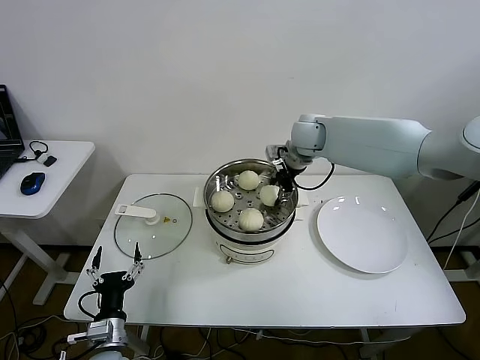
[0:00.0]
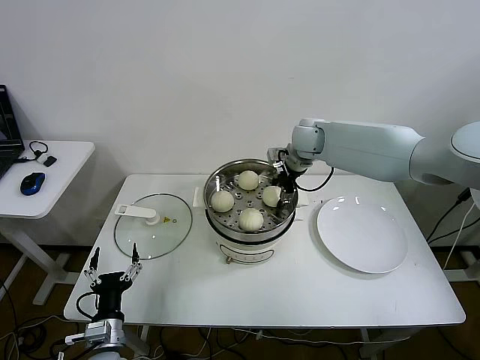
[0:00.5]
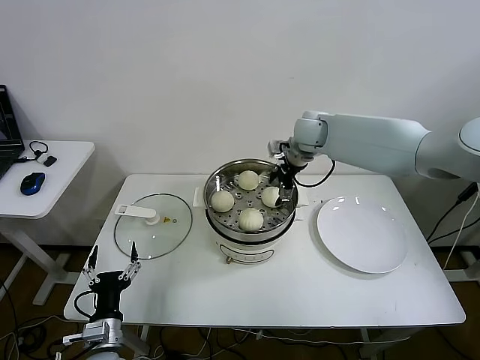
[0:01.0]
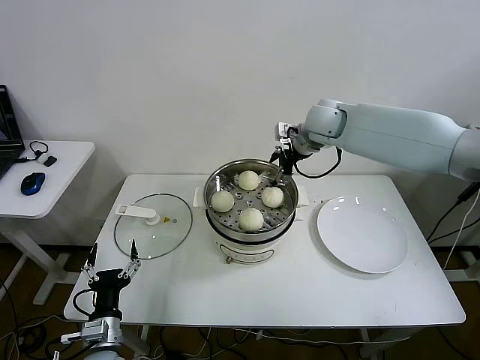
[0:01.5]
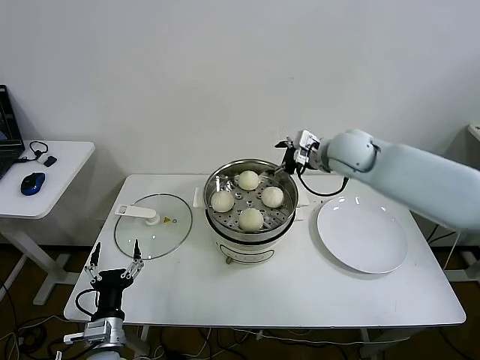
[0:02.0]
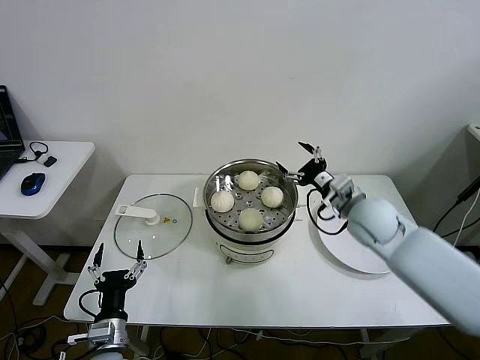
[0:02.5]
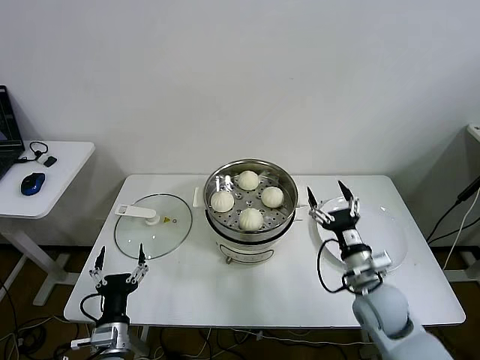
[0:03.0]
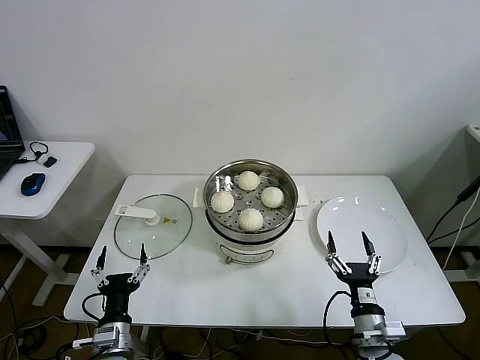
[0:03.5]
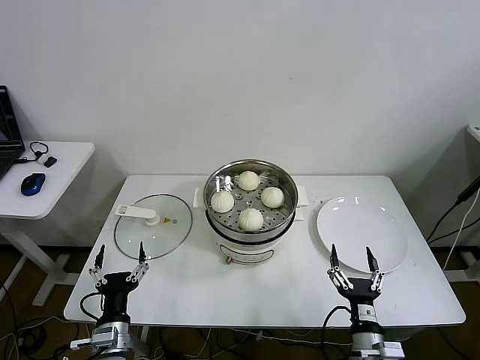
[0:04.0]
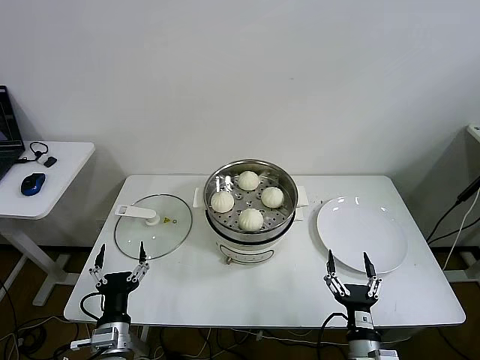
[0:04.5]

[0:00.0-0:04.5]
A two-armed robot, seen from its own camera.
0:00.0 to 0:02.0: The right gripper shifts about 10 cm backward and to the right, and opens.
0:02.0 to 0:04.5: The right gripper goes about 50 cm backward and downward.

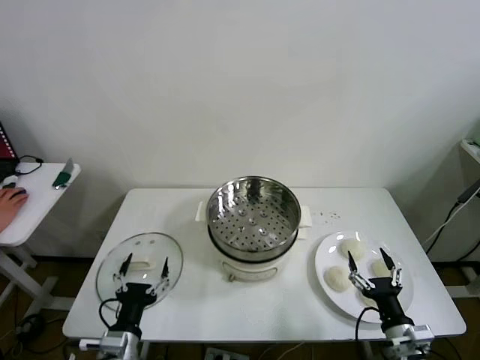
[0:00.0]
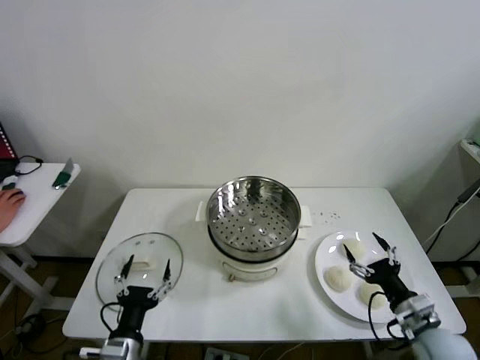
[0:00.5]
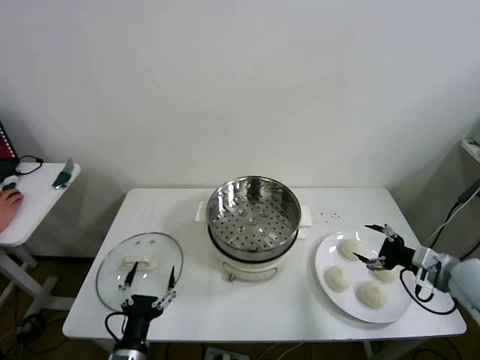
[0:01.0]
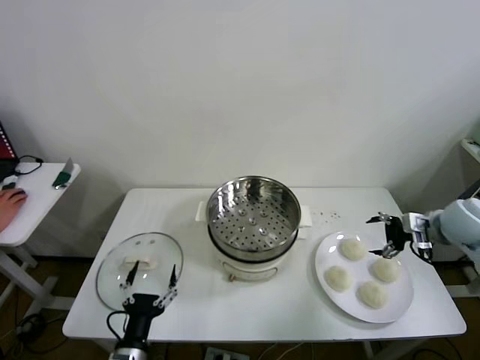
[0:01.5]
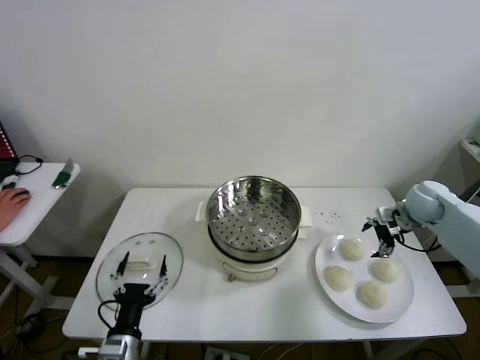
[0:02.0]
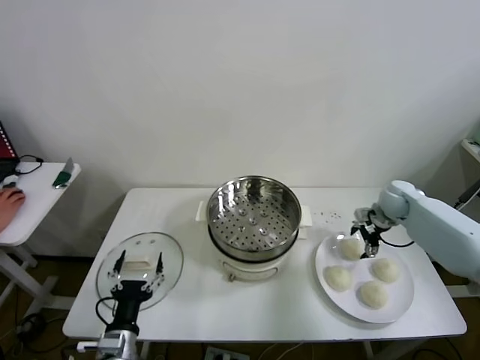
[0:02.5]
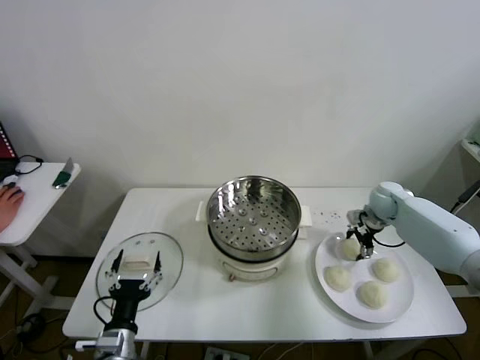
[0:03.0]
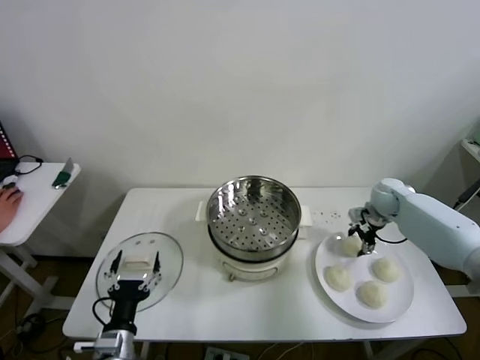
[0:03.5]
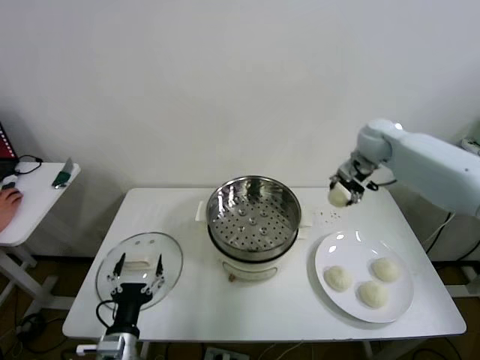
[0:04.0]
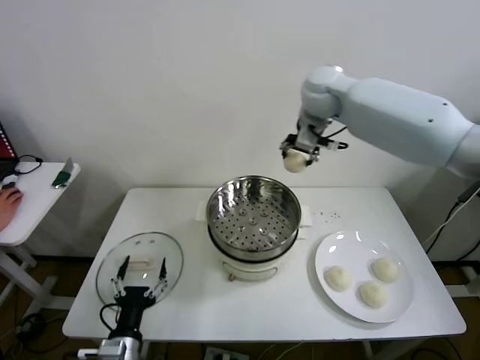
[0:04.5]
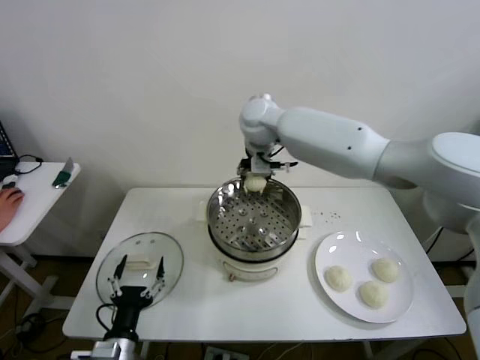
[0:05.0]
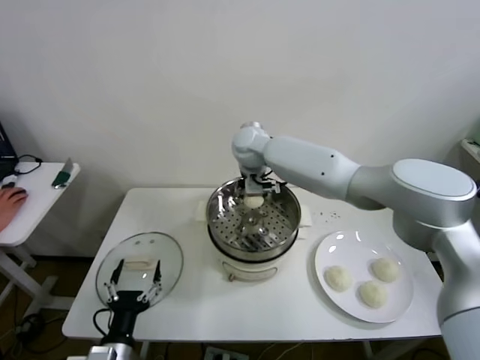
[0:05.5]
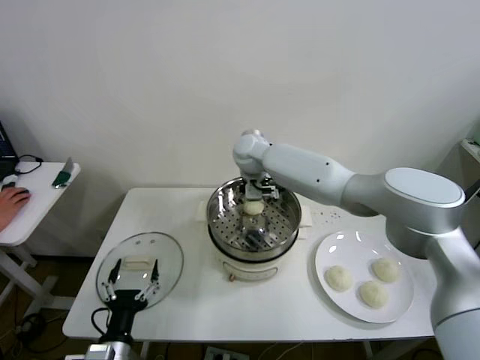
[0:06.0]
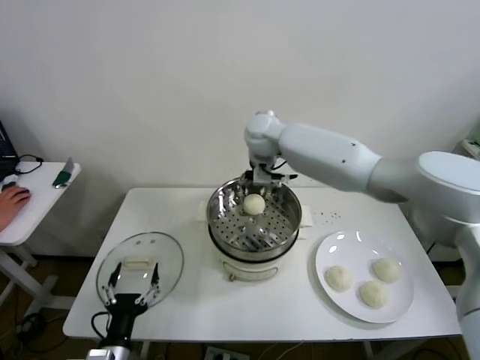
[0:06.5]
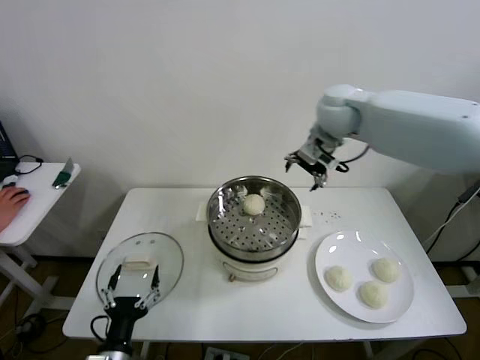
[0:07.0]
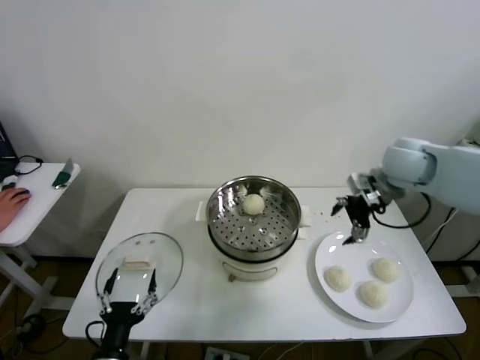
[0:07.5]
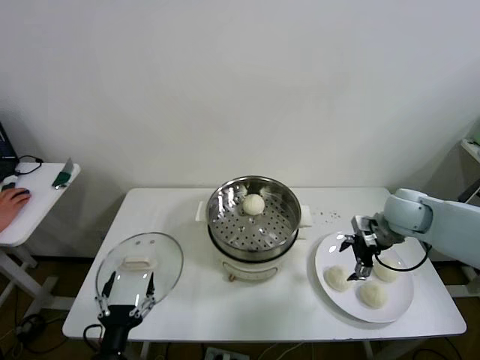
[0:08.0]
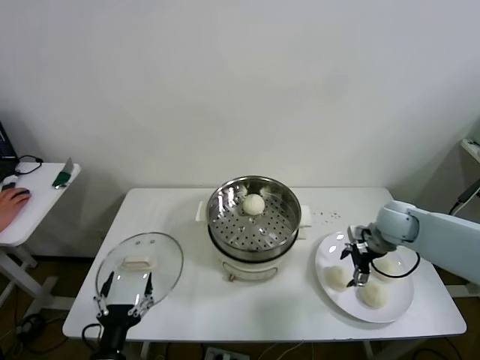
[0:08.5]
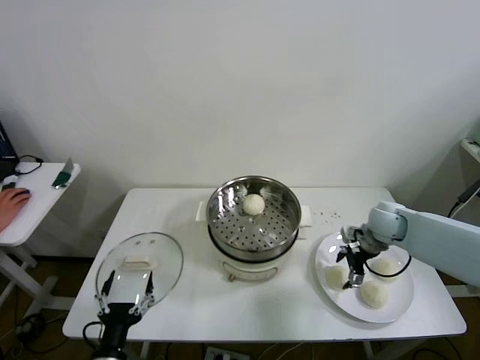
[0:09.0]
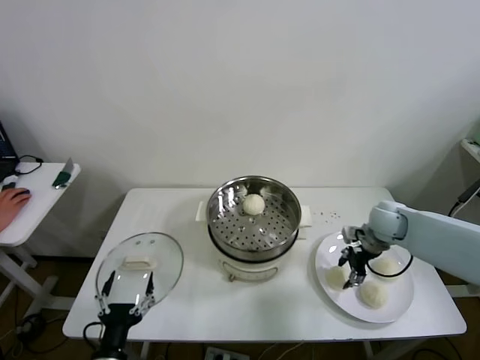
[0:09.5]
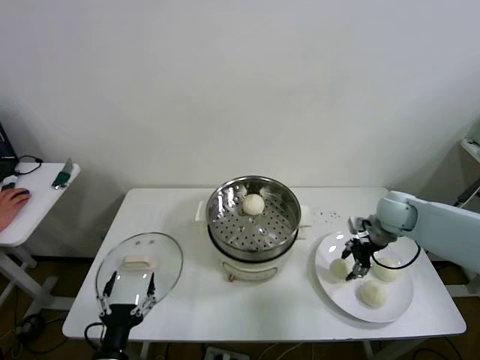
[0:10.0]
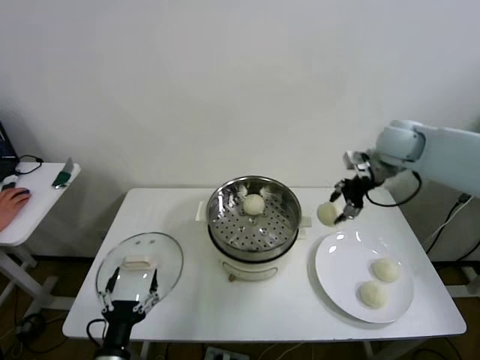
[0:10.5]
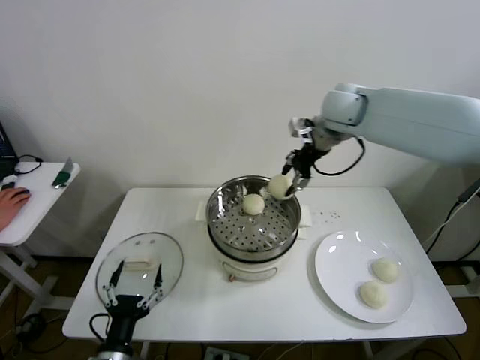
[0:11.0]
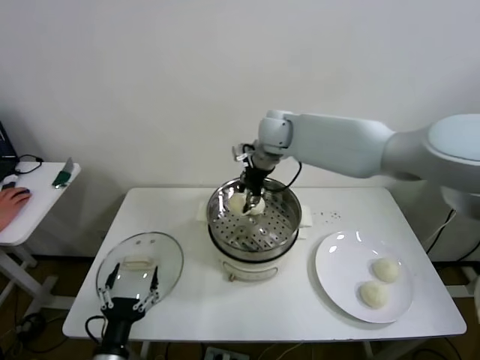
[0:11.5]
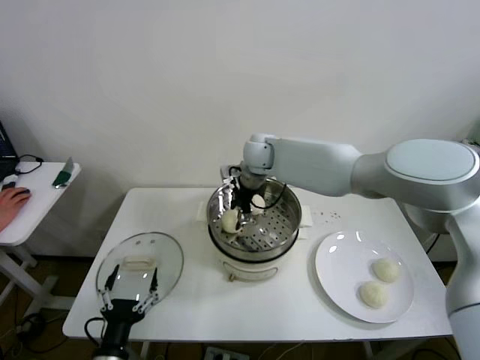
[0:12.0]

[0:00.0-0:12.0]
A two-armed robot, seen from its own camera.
Step, 0:00.0 to 0:03.0: Grasp the baozi in the plate with right gripper.
Step, 0:03.5 to 0:06.0: Place the baozi on the steamer with right gripper.
Step, 0:06.5 to 0:09.0: Grasp the baozi in the plate with right gripper.
Step, 0:09.5 to 0:12.0: Place the baozi on the steamer with right gripper.
0:02.0 to 0:04.0: The right gripper travels upward, to the left and forward by about 25 cm, and closes its fingers.
0:04.0 to 0:06.0: The right gripper travels to the left by about 25 cm, and opens up.
0:06.0 to 0:08.0: The right gripper shifts approximately 35 cm to the right and backward.
0:08.0 to 0:10.0: The right gripper closes its fingers.
0:10.0 to 0:12.0: The right gripper travels to the left by approximately 35 cm, and opens.

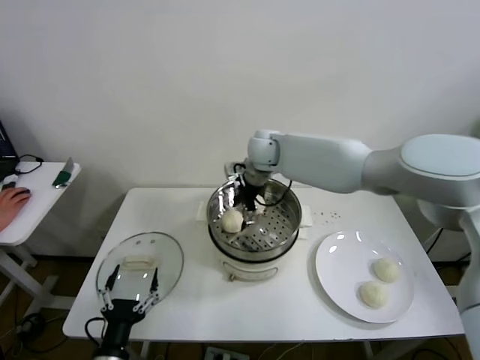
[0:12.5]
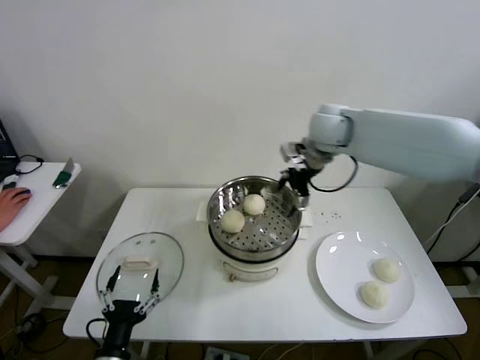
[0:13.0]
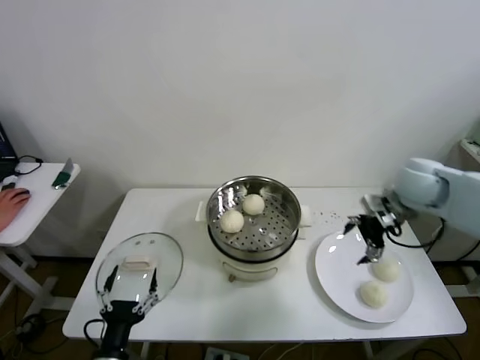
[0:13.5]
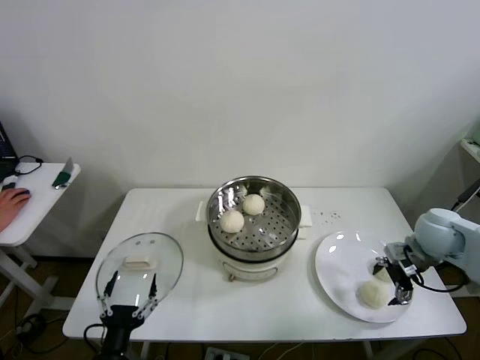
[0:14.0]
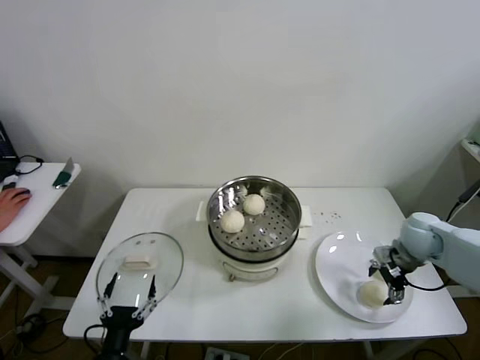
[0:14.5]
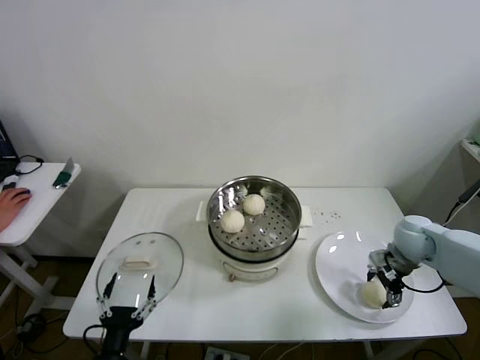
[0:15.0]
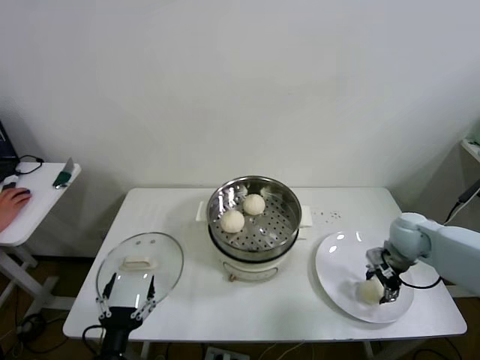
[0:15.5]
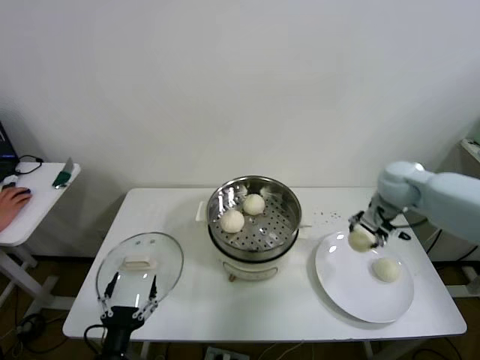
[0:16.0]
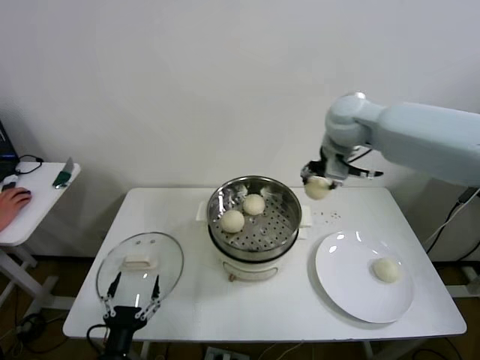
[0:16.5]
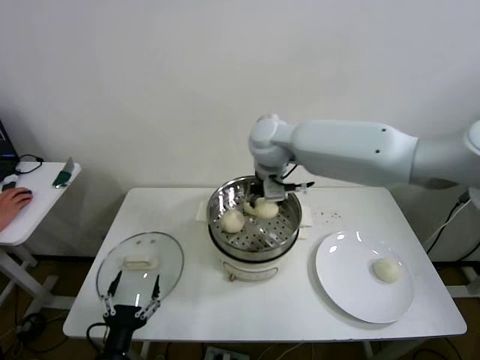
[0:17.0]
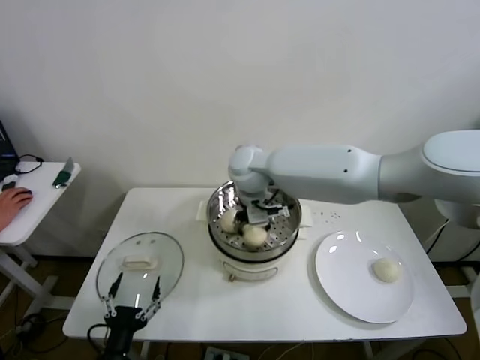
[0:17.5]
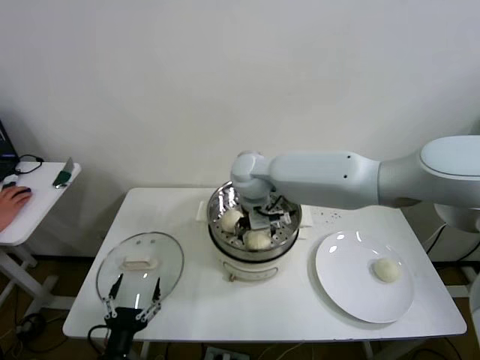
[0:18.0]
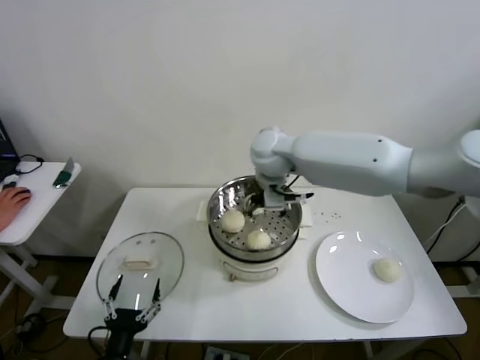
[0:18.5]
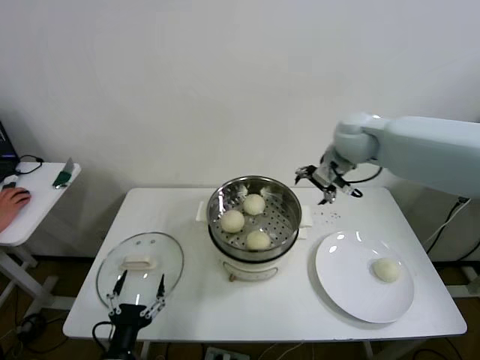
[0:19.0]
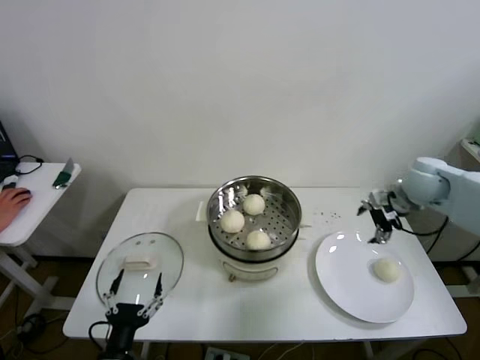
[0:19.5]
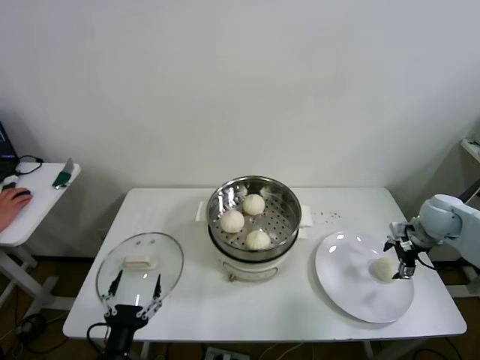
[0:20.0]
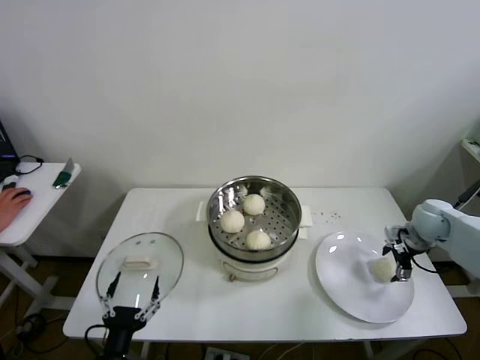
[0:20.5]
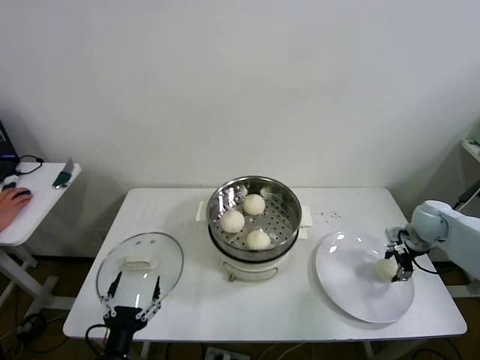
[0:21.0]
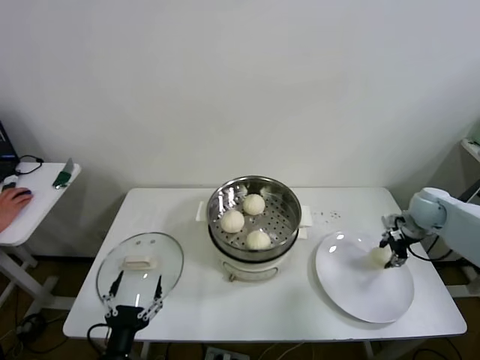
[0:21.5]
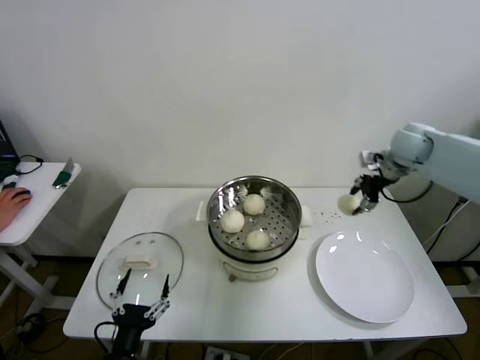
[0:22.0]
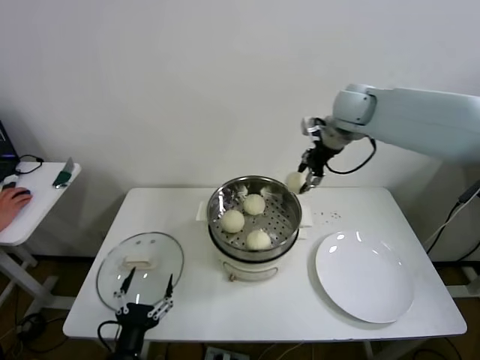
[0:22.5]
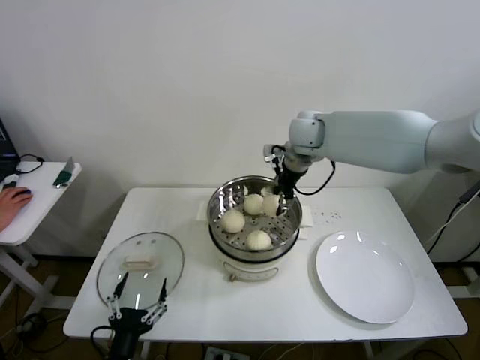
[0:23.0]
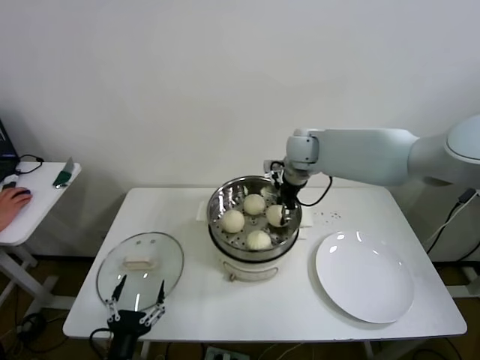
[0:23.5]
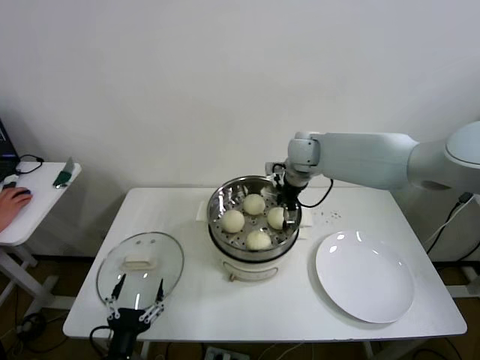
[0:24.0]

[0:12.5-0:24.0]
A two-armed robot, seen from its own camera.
Step, 0:12.5 to 0:15.0: Grasp the baozi in the plate with right gripper.
Step, 0:15.5 to 0:18.0: Place the baozi on the steamer with right gripper.
Step, 0:18.5 to 0:20.5: Grasp the baozi in the plate with right gripper.
Step, 0:21.0 to 0:23.5: Place the baozi on the steamer with right gripper.
0:12.5 to 0:14.5: The right gripper goes some 40 cm to the right, backward and downward.
0:14.5 to 0:16.5: The right gripper goes some 35 cm upward, to the left and forward, and closes up.
0:16.5 to 0:18.5: The right gripper travels to the left and downward by roughly 15 cm, and opens up.
0:18.5 to 0:20.0: The right gripper moves to the right, approximately 40 cm.
0:20.0 to 0:22.0: The right gripper moves upward, forward and to the left, approximately 20 cm, and closes.
0:22.0 to 0:24.0: The right gripper moves to the left, approximately 25 cm, and opens up.
